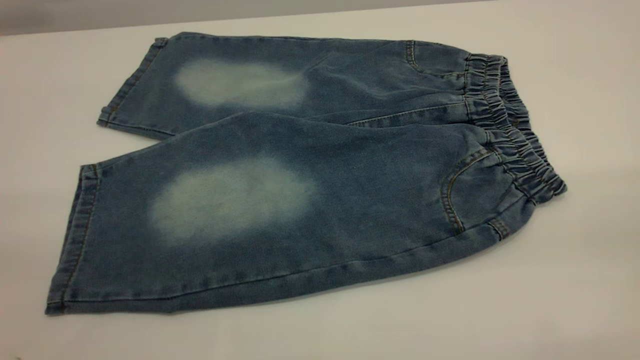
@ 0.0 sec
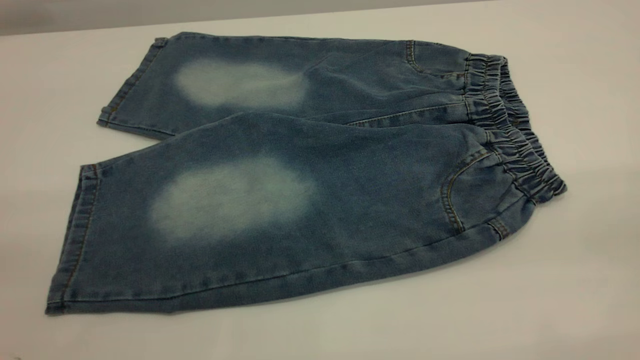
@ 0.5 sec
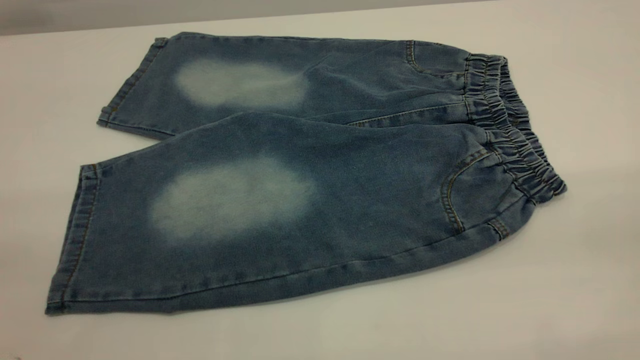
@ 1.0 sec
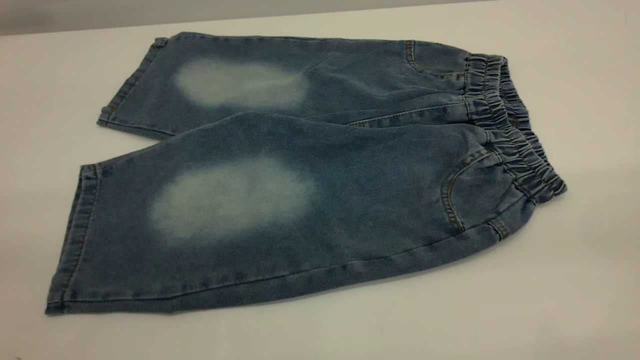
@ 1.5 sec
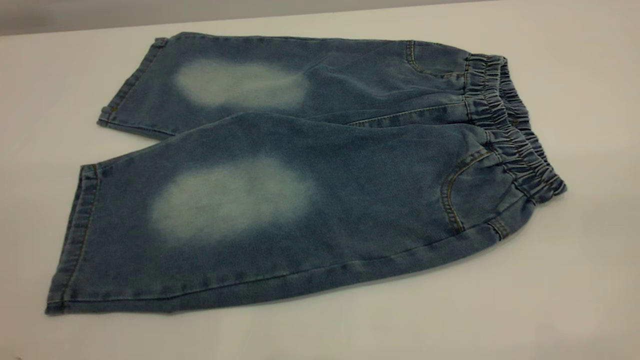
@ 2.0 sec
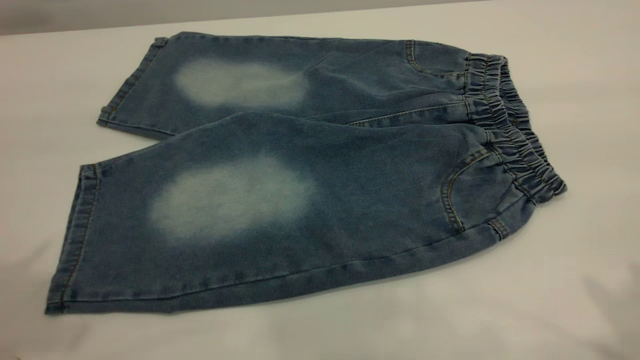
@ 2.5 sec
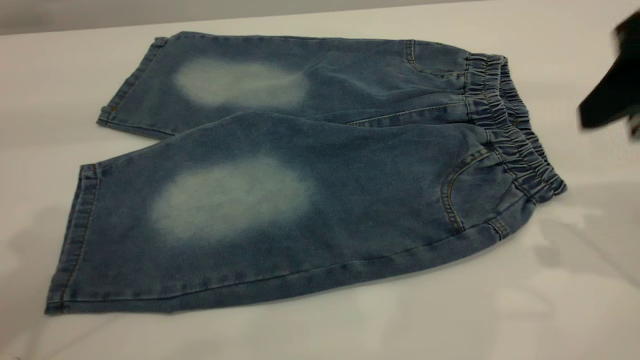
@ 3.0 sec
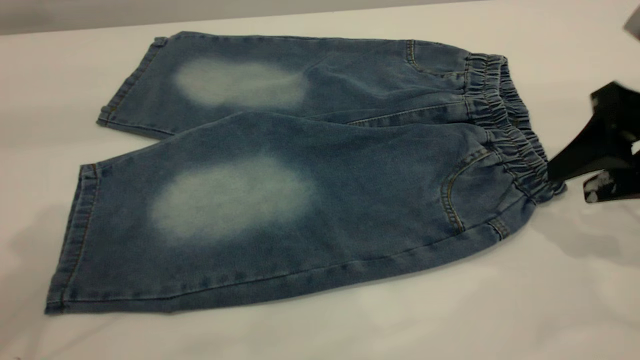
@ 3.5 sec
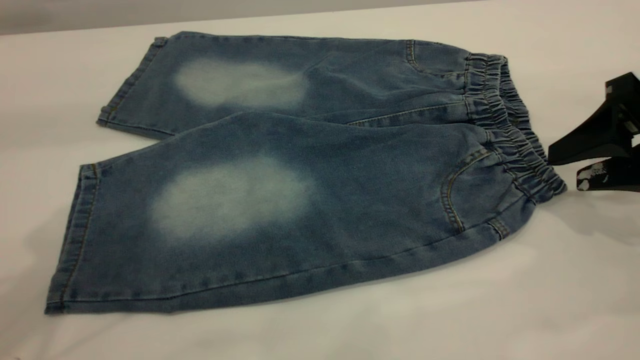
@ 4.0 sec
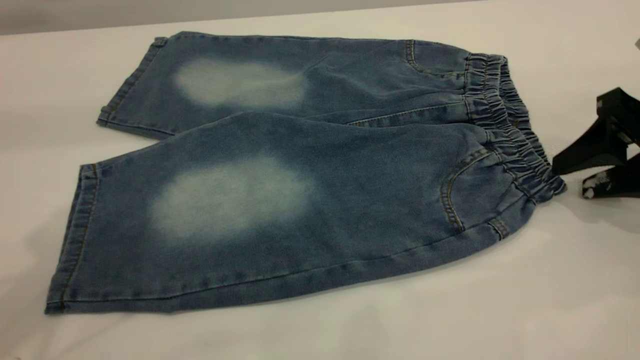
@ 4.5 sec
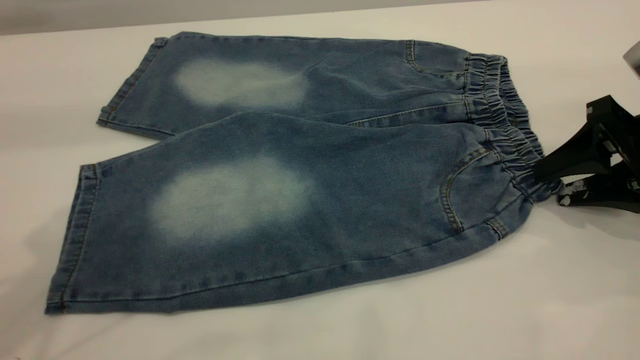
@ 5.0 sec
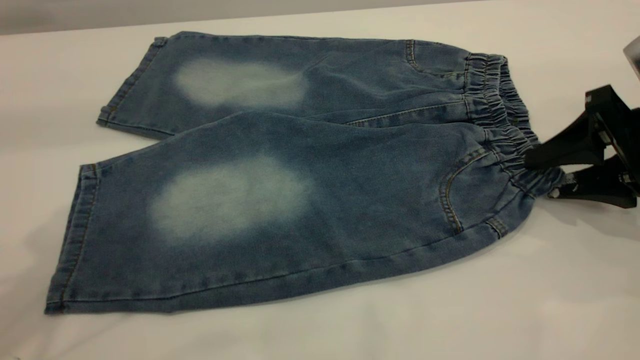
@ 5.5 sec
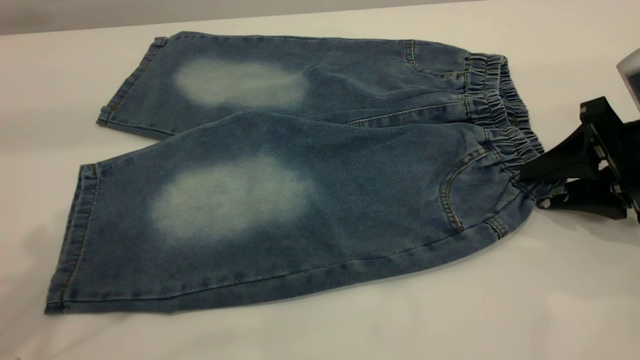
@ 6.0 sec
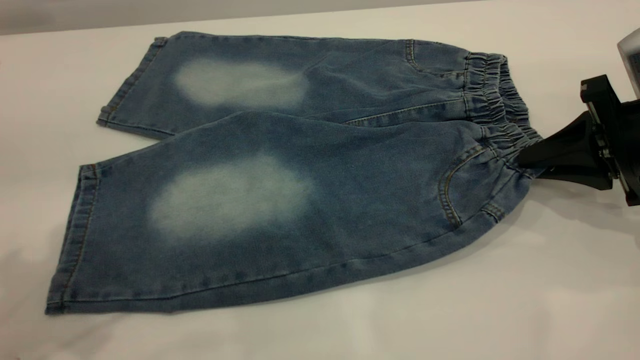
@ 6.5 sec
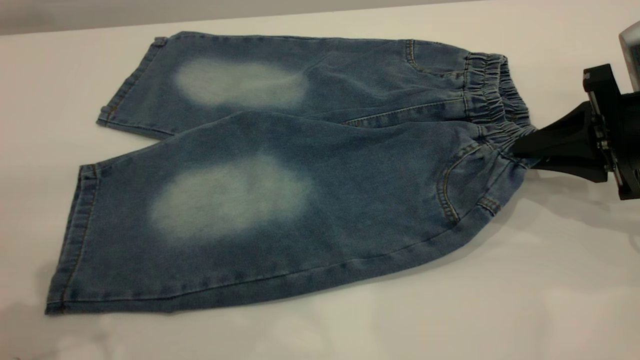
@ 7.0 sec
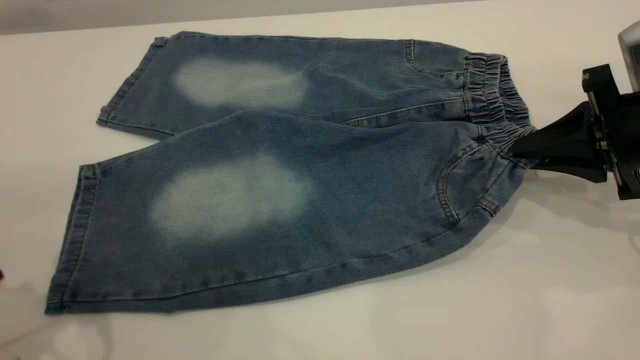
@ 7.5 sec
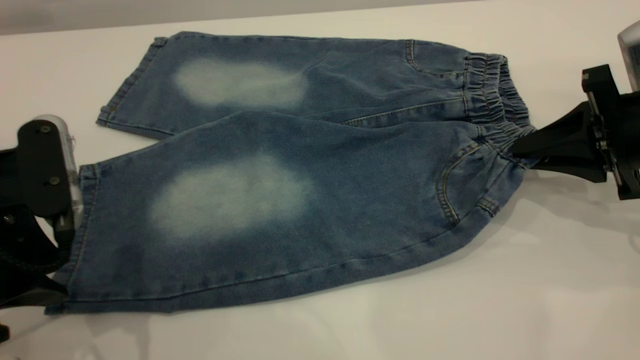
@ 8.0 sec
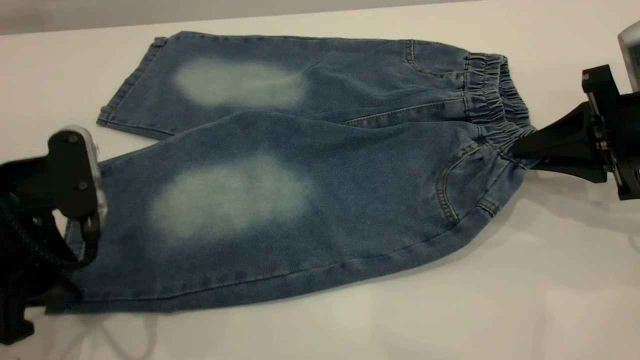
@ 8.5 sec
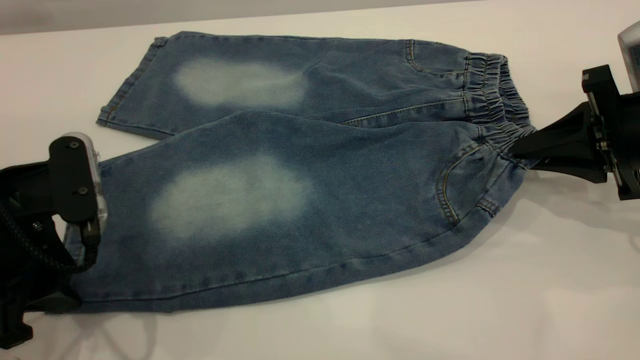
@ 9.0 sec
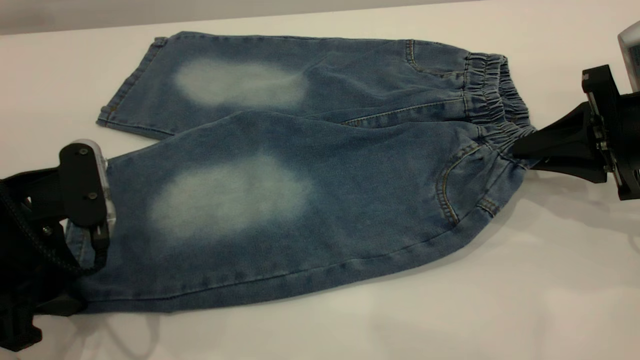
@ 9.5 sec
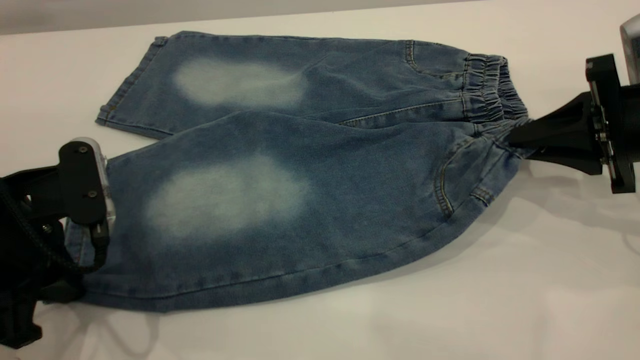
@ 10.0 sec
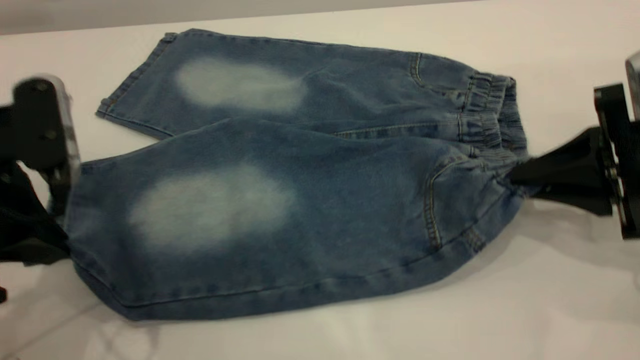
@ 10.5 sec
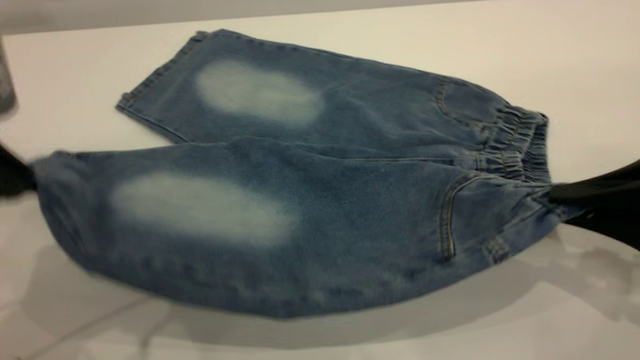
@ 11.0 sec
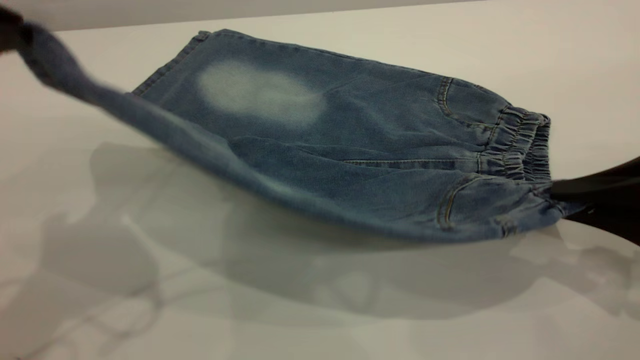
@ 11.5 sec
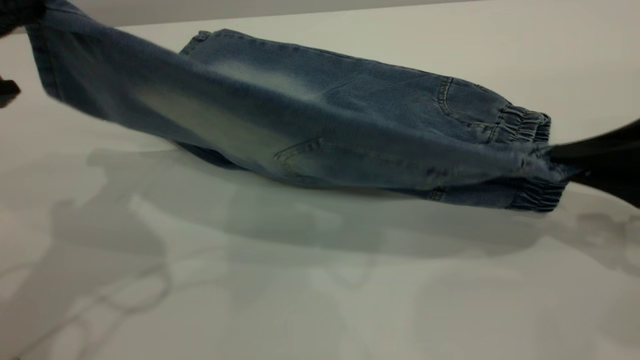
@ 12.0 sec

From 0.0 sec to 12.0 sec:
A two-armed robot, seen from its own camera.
From 2.0 sec to 4.0 sec: The right gripper heads forward and downward, covering some 35 cm.
From 4.0 sec to 6.0 sec: The grippers make only small movements.
From 6.0 sec to 8.0 sec: The left gripper travels downward by about 20 cm. The right gripper closes.
From 8.0 sec to 10.0 sec: The left gripper closes.
From 10.0 sec to 12.0 sec: The left gripper heads upward, covering approximately 15 cm; the right gripper shifts approximately 5 cm backward.

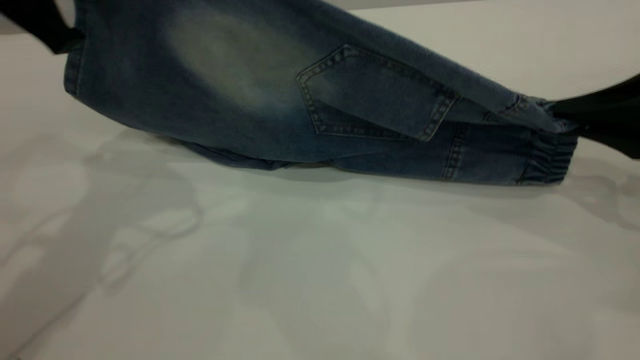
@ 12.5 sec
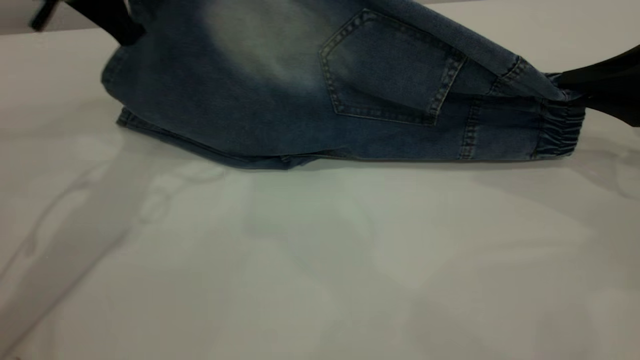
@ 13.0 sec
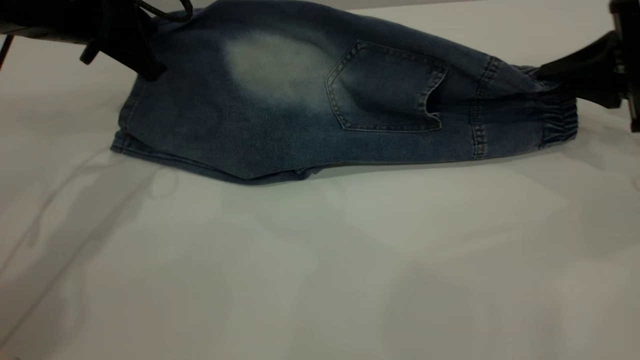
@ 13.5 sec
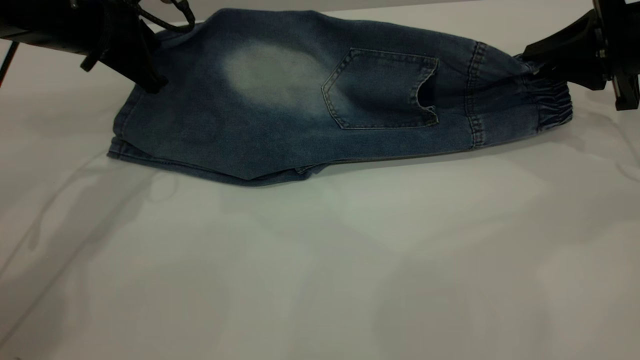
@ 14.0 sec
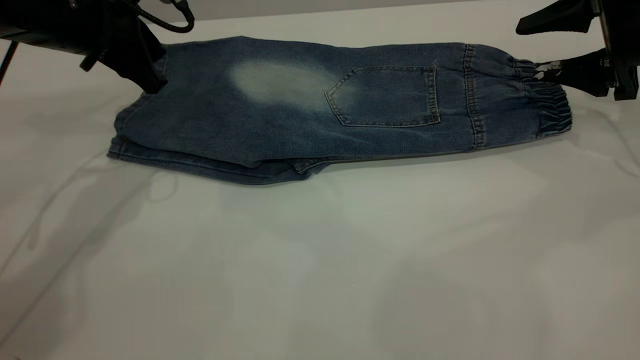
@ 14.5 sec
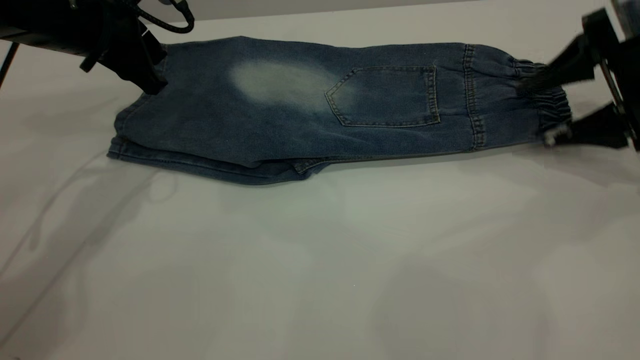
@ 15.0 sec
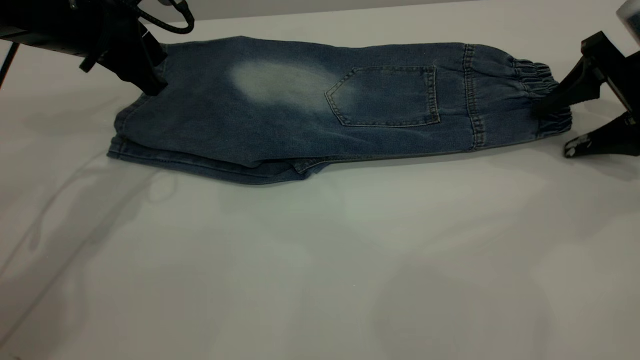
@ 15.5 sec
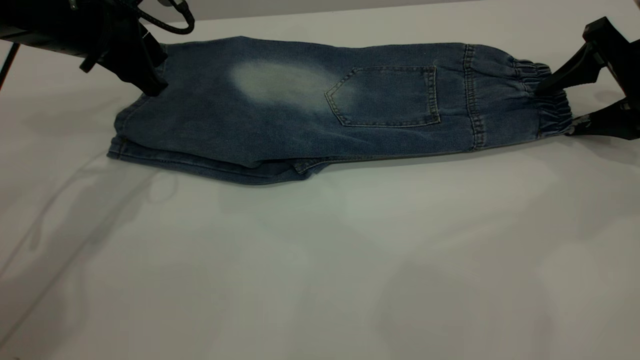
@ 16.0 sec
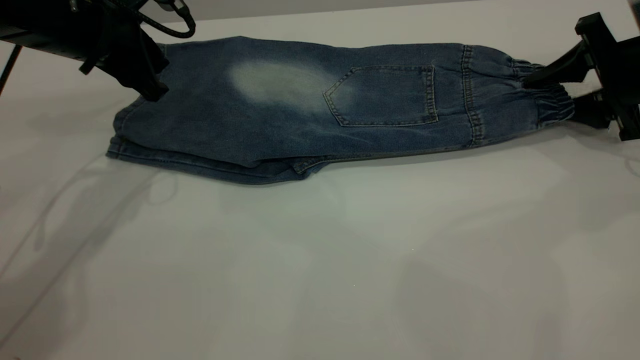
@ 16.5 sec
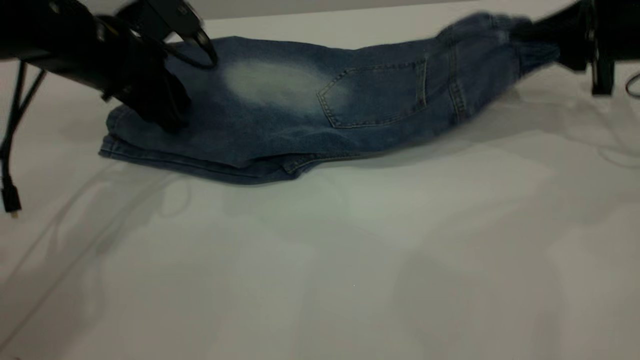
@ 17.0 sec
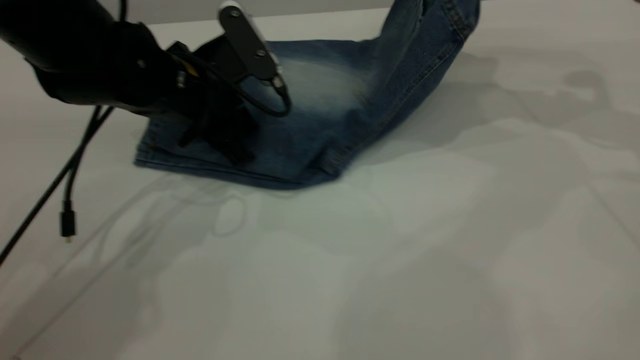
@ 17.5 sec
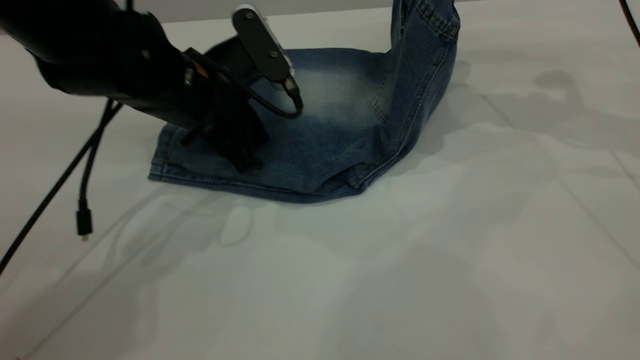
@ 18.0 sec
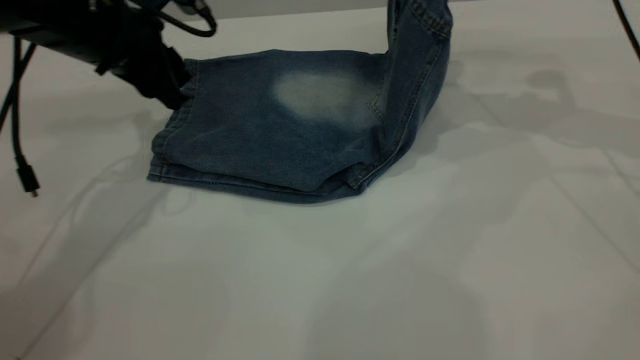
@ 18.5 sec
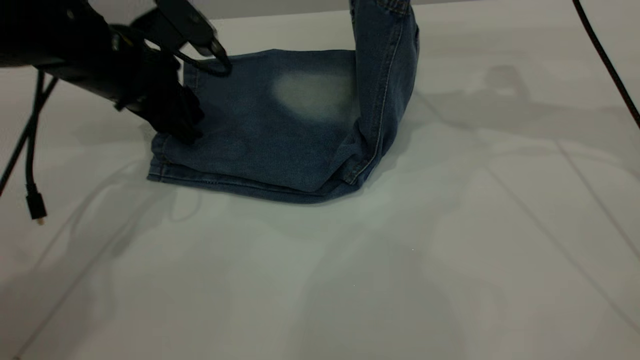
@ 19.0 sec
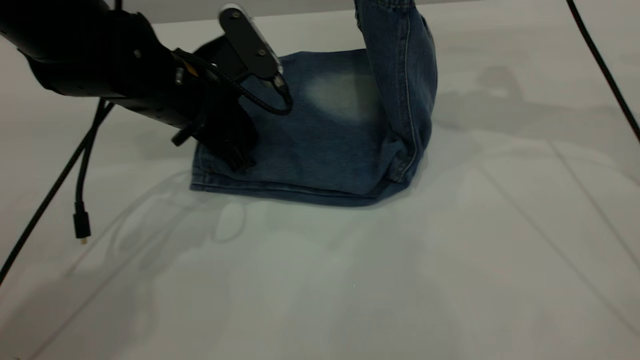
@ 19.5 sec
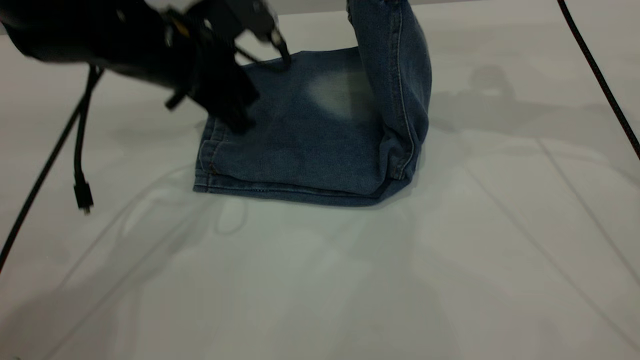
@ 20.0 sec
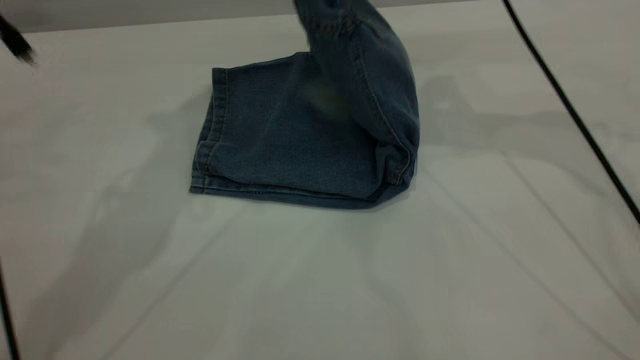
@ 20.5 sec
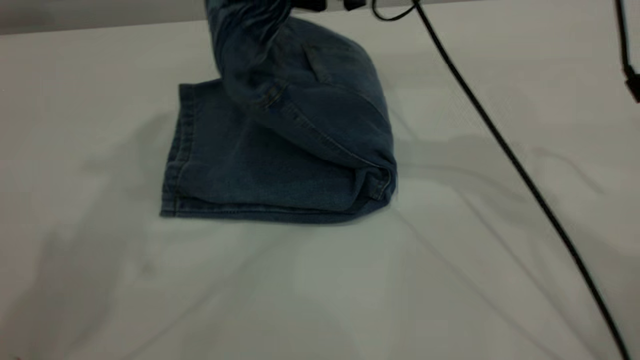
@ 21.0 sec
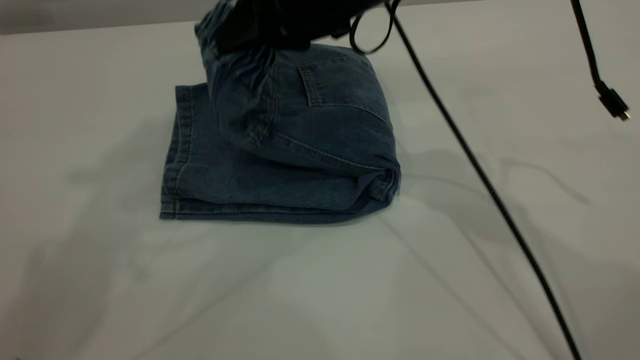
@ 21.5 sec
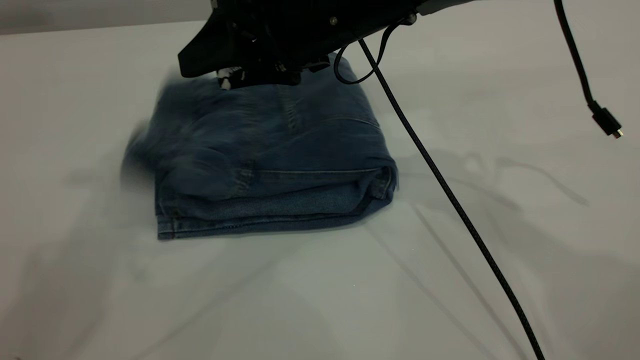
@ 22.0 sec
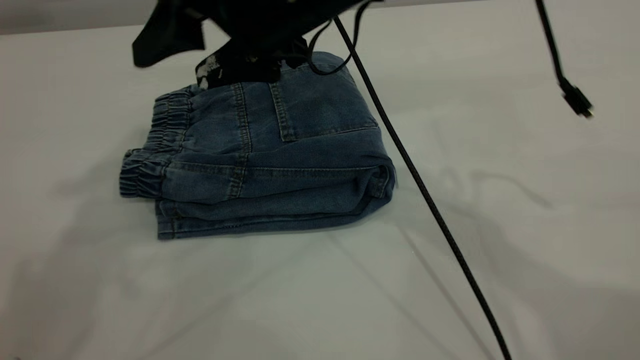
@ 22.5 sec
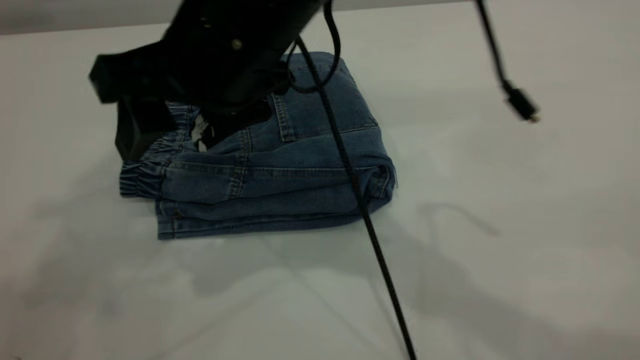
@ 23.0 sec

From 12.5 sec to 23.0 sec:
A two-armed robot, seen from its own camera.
Step, from 12.5 sec to 15.5 sec: Fold the bottom of the pants upward.
Step, from 16.0 sec to 22.0 sec: Fold your pants from right to left.
From 12.5 sec to 14.5 sec: The left gripper goes roughly 15 cm downward and forward, and opens. Meanwhile the right gripper is displaced forward by about 10 cm, and opens.
From 14.5 sec to 16.5 sec: The right gripper closes up.
From 16.5 sec to 19.0 sec: The right gripper heads upward and to the left, covering some 20 cm, and closes its fingers.
From 19.0 sec to 21.0 sec: The right gripper moves to the left, approximately 15 cm. Meanwhile the left gripper moves upward, about 35 cm.
From 21.0 sec to 23.0 sec: The left gripper changes place by about 5 cm. The right gripper goes approximately 15 cm backward and to the left, and opens.
